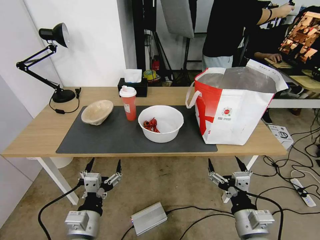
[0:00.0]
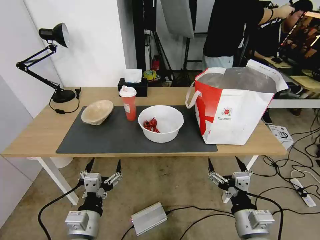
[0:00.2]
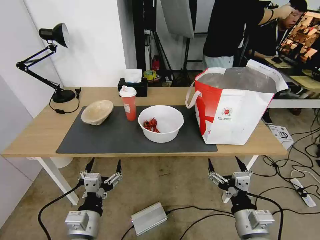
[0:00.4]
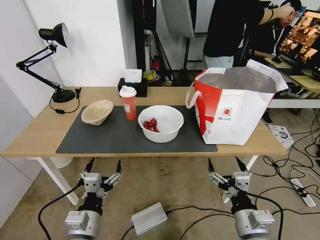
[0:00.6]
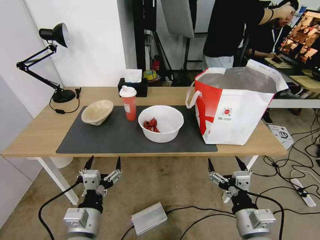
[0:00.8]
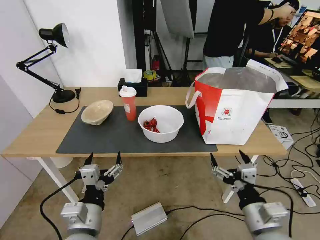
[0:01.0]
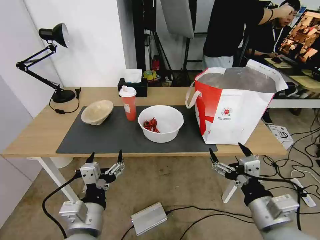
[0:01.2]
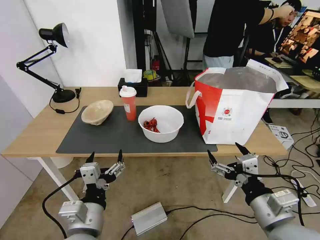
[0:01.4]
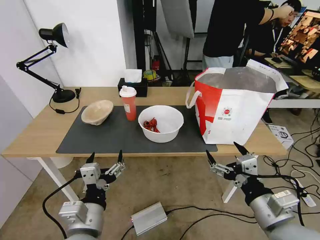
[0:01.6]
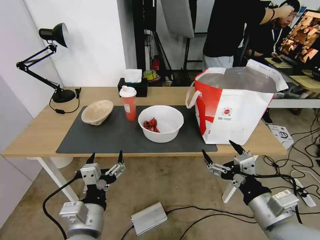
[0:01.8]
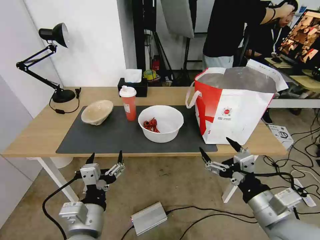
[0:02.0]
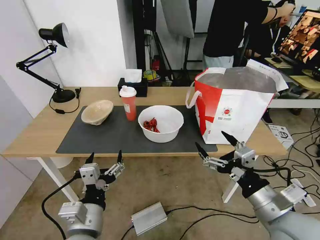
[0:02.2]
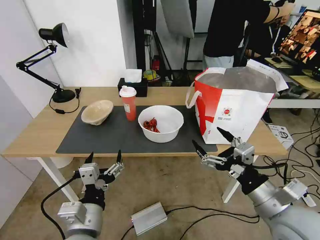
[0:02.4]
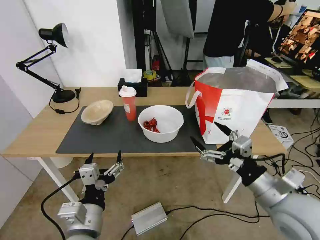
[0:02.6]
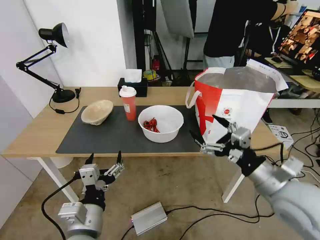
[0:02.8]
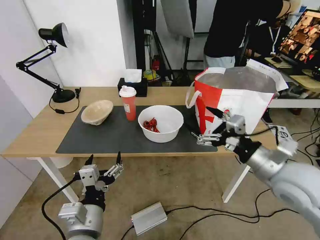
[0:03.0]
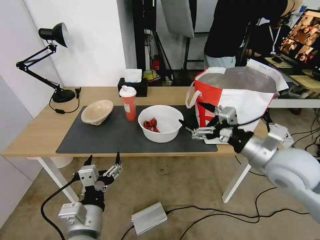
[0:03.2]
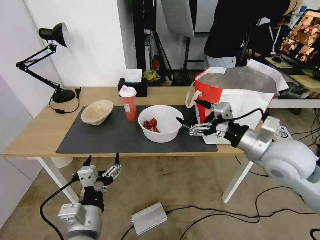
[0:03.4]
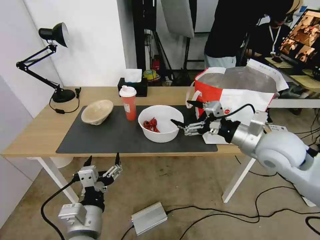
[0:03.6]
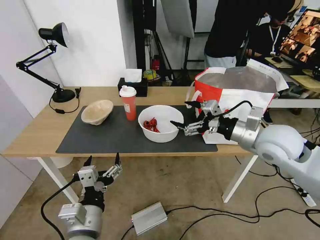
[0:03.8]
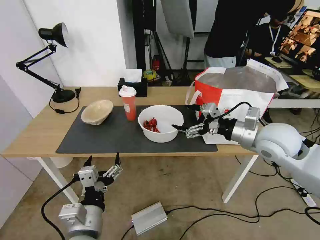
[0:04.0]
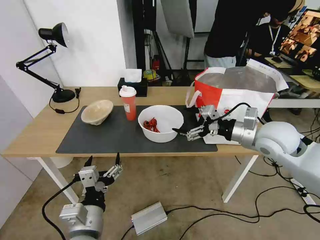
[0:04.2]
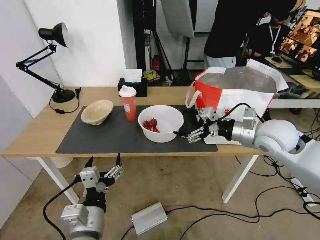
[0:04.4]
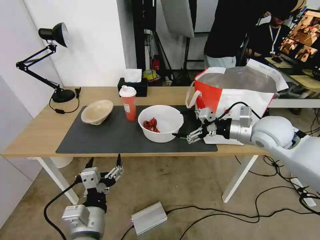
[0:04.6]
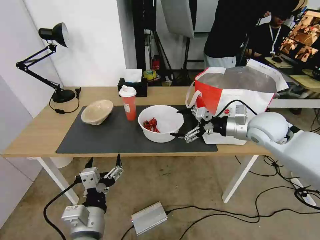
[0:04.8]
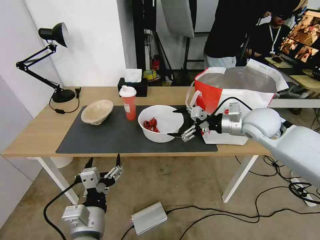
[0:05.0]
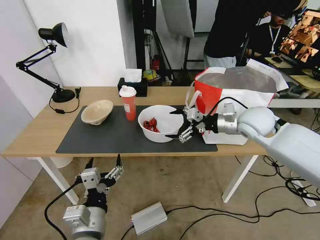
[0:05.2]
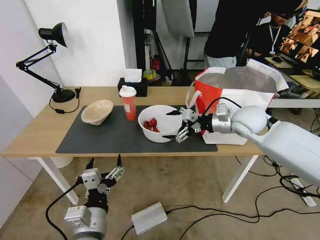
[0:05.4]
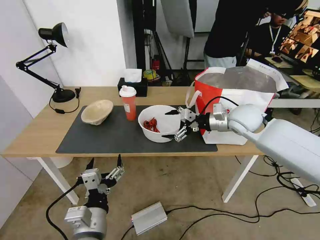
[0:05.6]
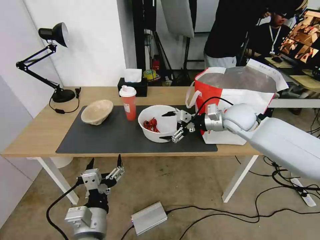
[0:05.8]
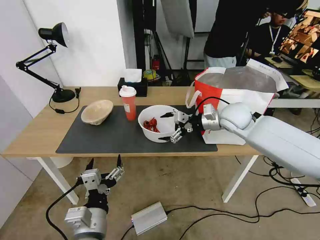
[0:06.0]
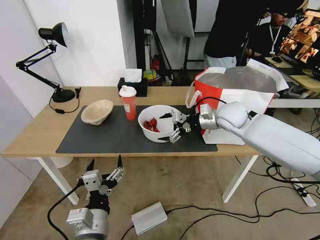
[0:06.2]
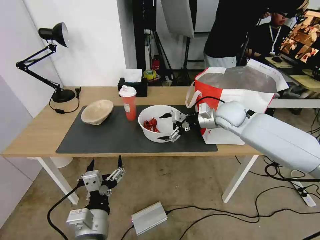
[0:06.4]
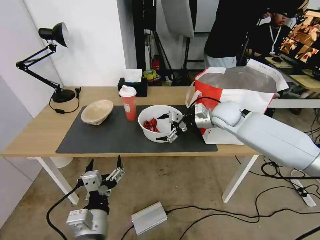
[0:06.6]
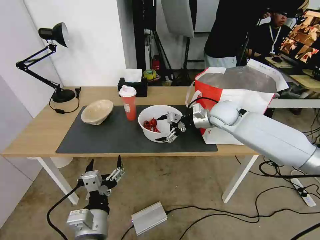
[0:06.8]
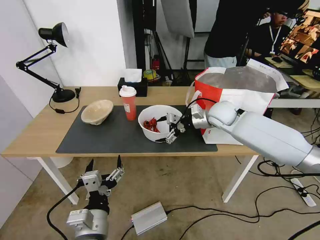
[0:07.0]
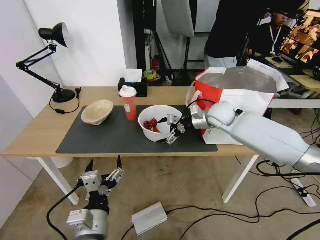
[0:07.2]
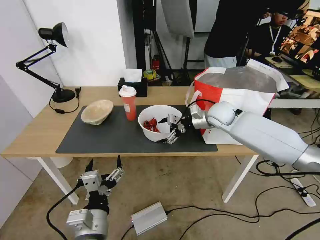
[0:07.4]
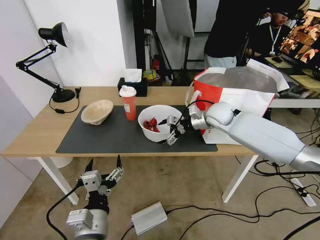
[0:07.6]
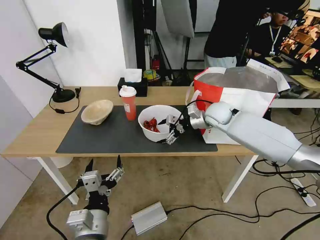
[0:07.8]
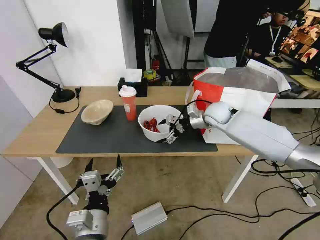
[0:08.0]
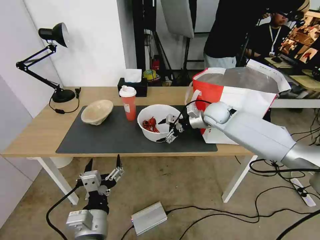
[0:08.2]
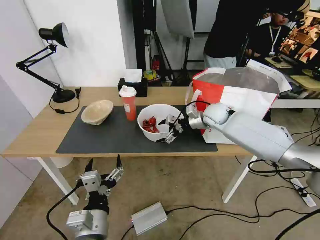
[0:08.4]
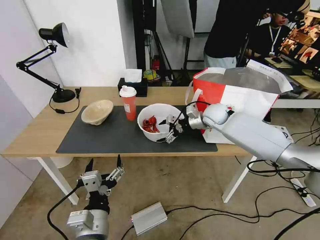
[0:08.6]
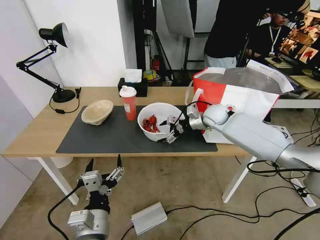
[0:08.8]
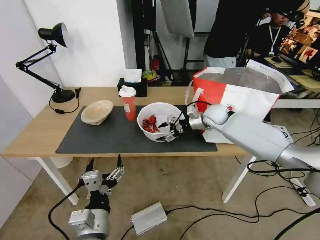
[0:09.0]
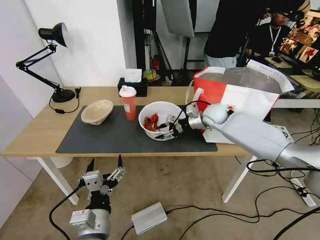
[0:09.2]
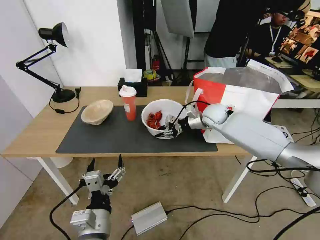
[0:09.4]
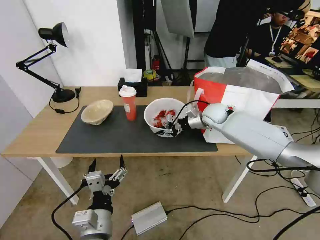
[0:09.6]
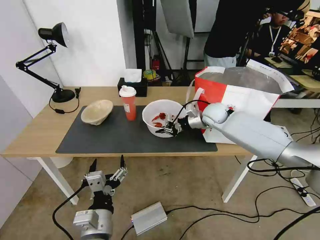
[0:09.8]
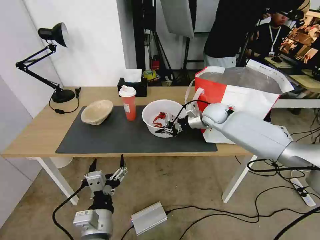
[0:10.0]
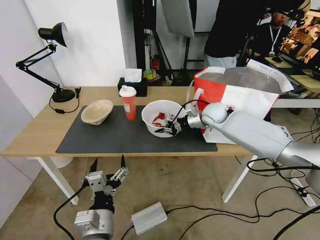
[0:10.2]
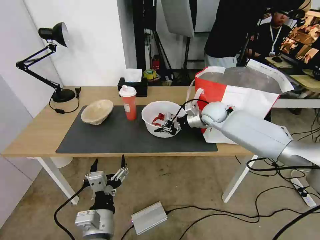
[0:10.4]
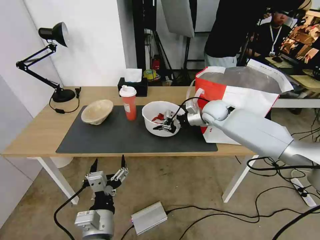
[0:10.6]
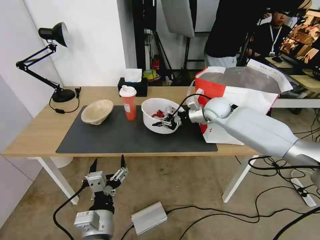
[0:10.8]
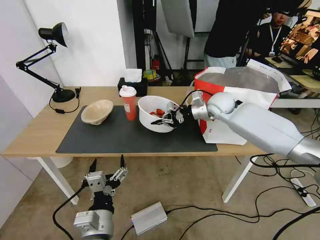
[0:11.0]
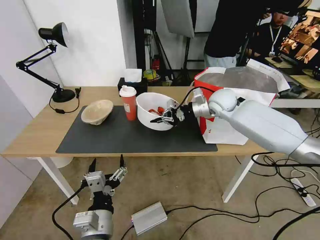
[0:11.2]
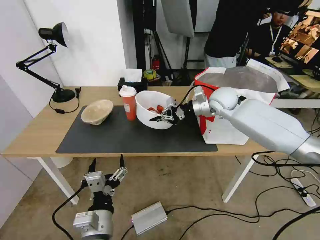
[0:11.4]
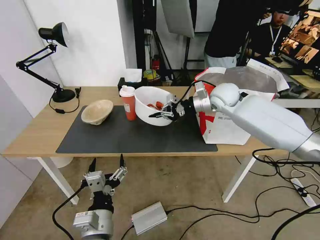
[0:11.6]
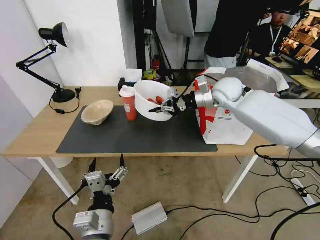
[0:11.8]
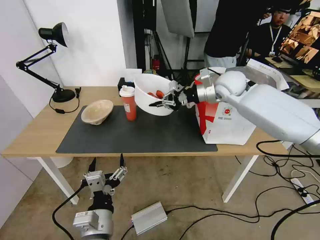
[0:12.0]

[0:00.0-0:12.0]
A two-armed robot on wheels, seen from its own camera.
Task of the whole recording: Pick up the trash from the table and place it into the takeout bag.
0:01.6 to 0:03.0: The right gripper heads forward and upward, covering approximately 10 cm.
0:03.0 to 0:04.4: The right gripper is displaced forward by roughly 15 cm.
0:04.4 to 0:06.0: The right gripper is displaced forward and to the left by about 10 cm.
0:06.0 to 0:07.6: The right gripper shifts some 5 cm forward.
0:07.6 to 0:09.0: The grippers stay close to where they were, moving slightly.
0:09.0 to 0:10.4: The right gripper closes up.
0:10.4 to 0:12.0: The right gripper shifts about 15 cm upward.

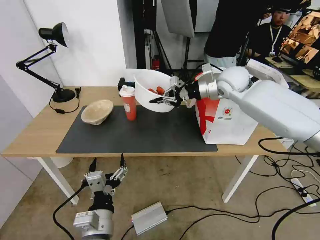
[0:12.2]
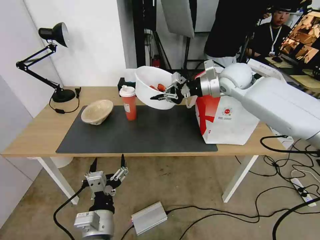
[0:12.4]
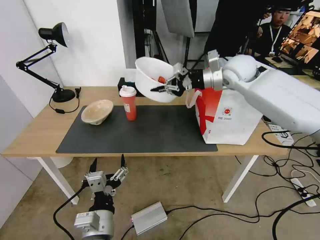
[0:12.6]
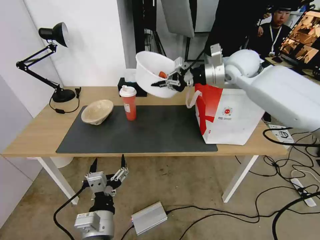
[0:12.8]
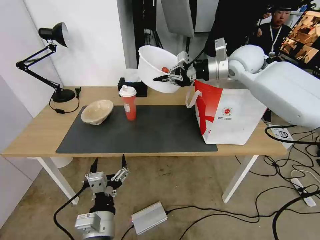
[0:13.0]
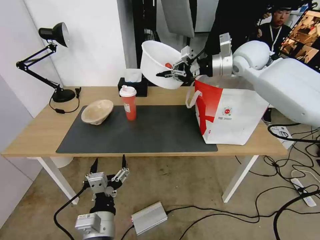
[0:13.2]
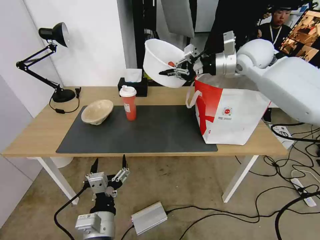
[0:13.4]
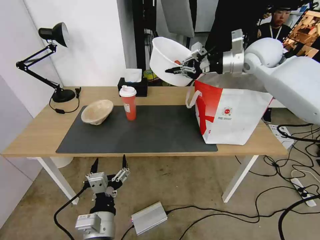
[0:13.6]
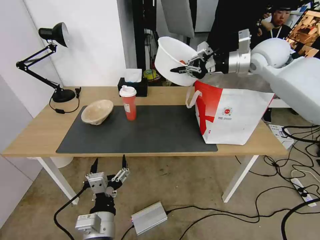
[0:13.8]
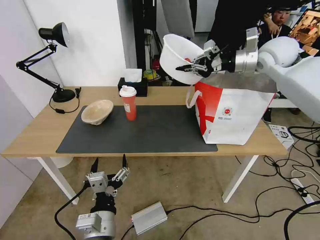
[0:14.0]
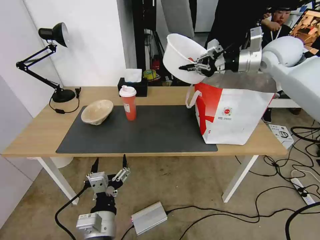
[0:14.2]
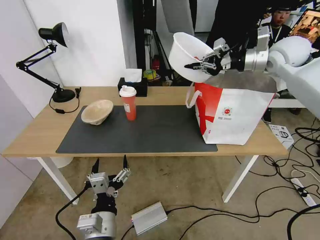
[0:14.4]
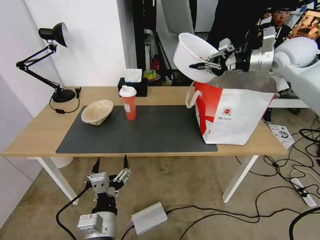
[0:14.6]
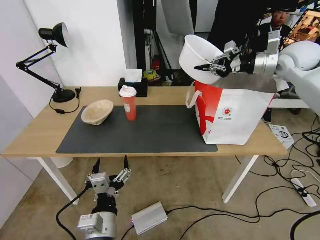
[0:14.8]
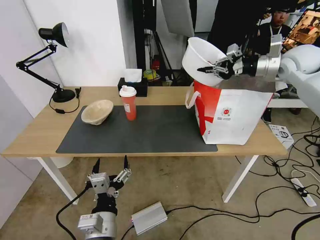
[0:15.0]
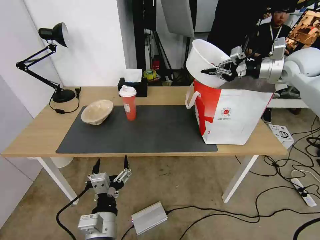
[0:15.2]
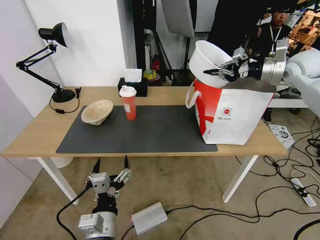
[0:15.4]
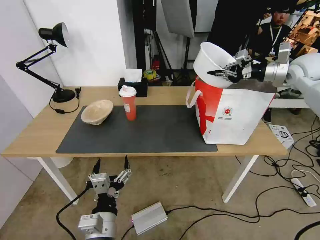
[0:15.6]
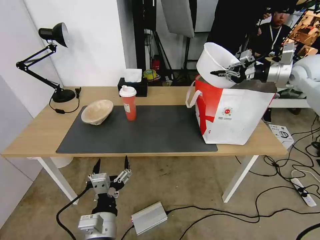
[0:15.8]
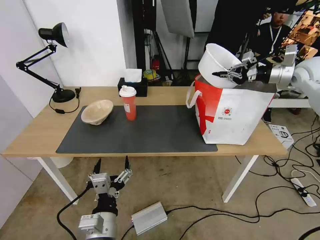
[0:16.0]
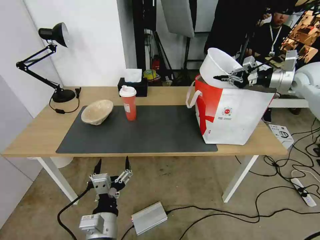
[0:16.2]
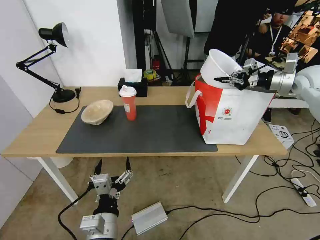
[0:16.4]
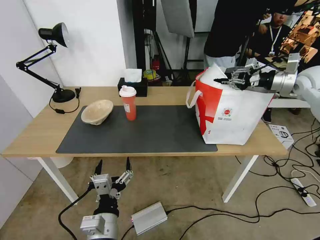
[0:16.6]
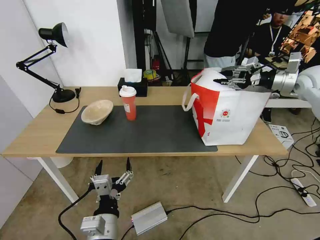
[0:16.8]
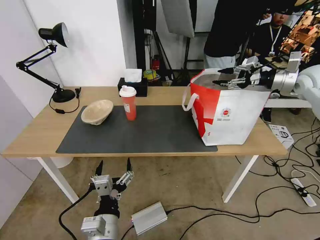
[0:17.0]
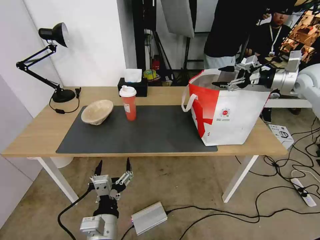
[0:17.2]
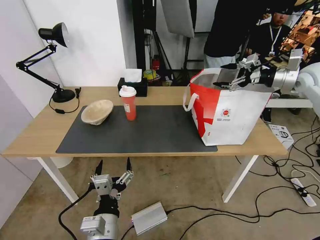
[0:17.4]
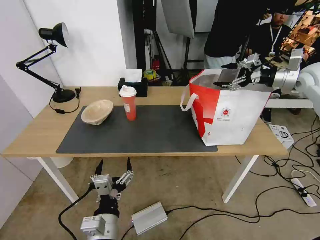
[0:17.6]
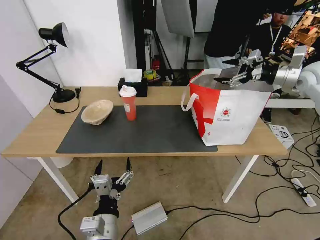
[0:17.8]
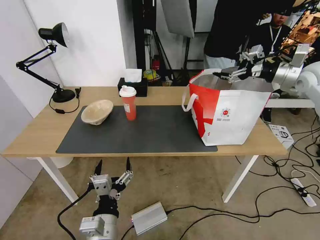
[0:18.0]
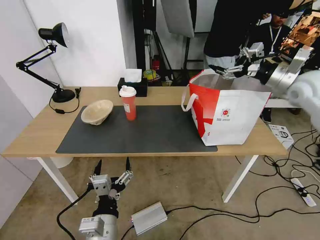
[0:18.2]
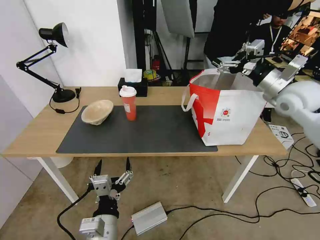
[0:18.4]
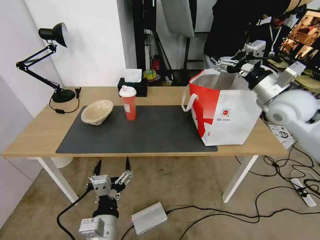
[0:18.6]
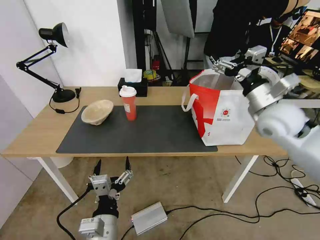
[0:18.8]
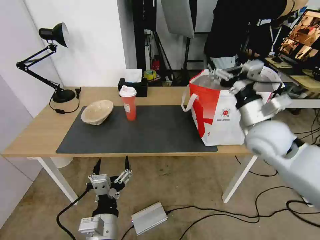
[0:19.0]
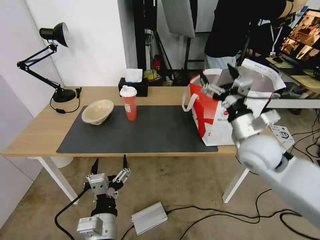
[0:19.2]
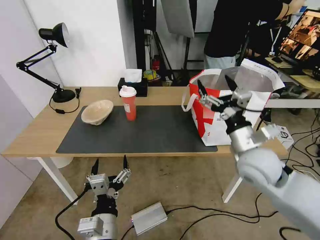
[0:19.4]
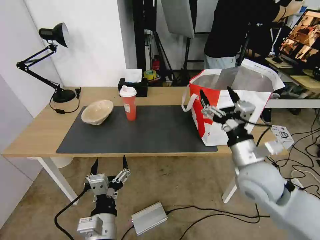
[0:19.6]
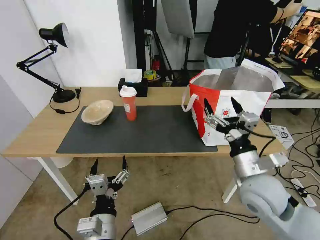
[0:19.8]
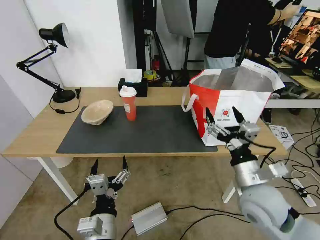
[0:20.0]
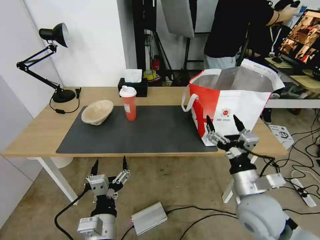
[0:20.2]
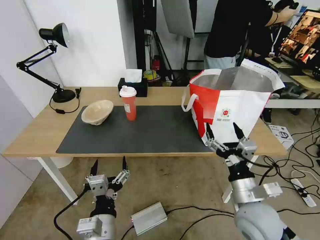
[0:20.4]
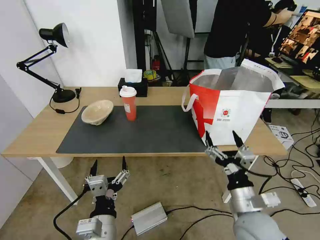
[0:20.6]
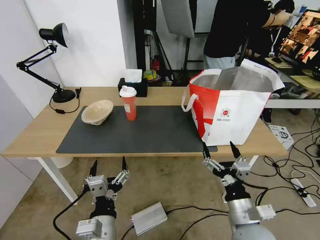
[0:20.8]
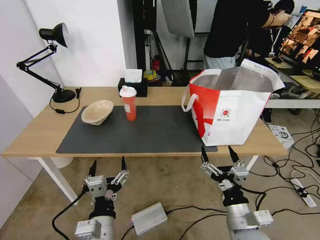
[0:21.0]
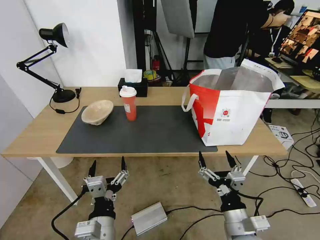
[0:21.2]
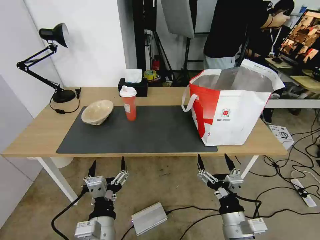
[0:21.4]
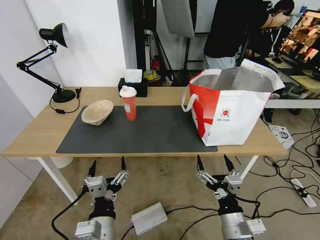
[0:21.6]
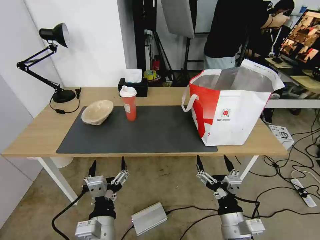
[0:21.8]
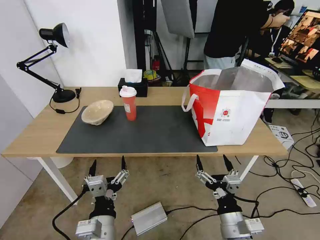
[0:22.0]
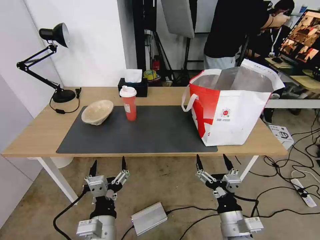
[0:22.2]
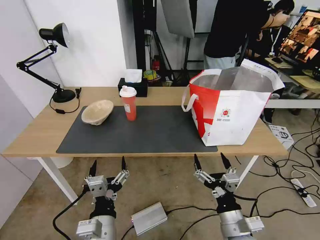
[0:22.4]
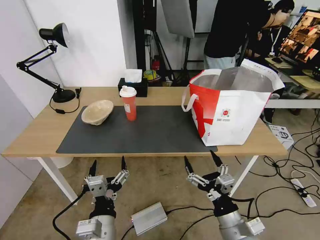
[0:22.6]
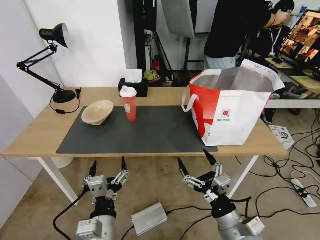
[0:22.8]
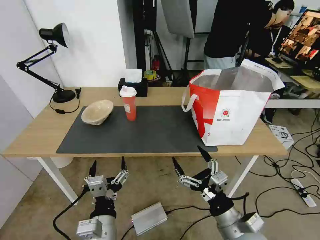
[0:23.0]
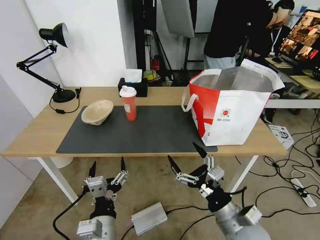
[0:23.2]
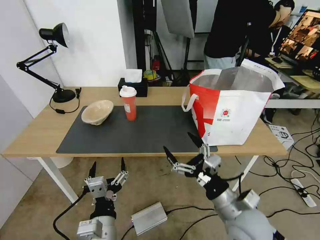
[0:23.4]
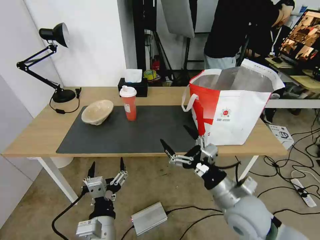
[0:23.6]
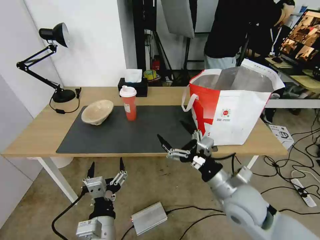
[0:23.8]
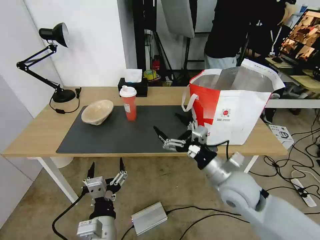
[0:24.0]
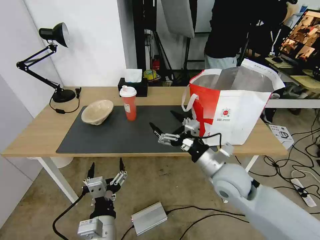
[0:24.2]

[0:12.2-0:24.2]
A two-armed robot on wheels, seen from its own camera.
Task of the whole recording: Pick up the trash from the table and place it into the takeout bag.
0:12.2 to 0:13.8: The right gripper shifts some 10 cm to the right and upward.
0:13.8 to 0:15.2: The right gripper is displaced to the right by approximately 10 cm.
0:15.2 to 0:16.6: The right gripper heads to the right, covering about 5 cm.
0:16.6 to 0:18.2: The right gripper shifts some 10 cm to the left and backward, and opens up.
0:18.2 to 0:19.8: The right gripper goes about 35 cm backward, to the left and downward.
0:19.8 to 0:21.2: The right gripper heads backward and downward, covering some 15 cm.
0:21.2 to 0:22.6: The grippers move only a little.
0:22.6 to 0:24.2: The right gripper is displaced forward and upward by roughly 20 cm.
